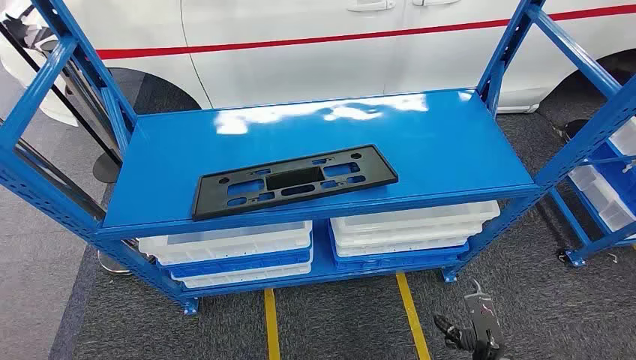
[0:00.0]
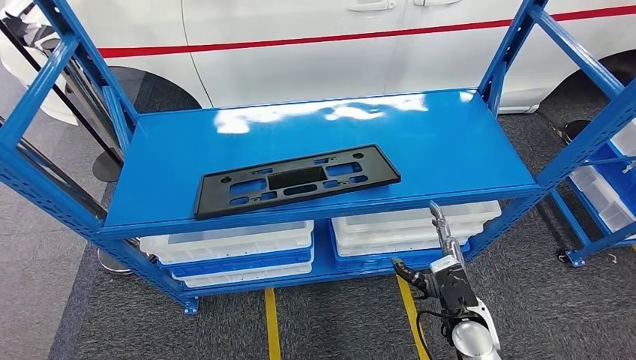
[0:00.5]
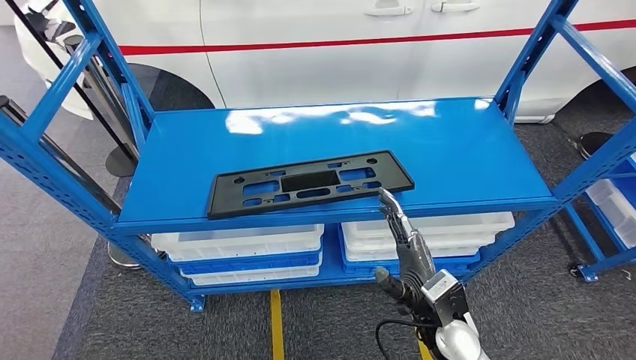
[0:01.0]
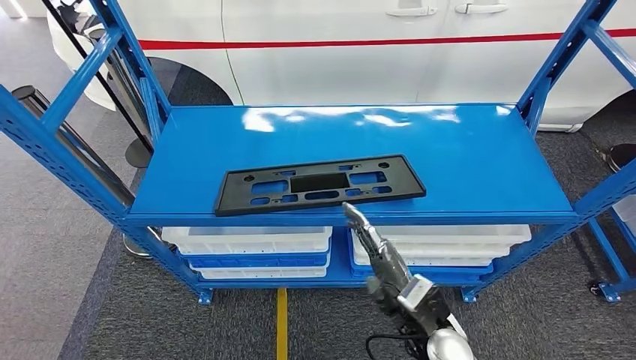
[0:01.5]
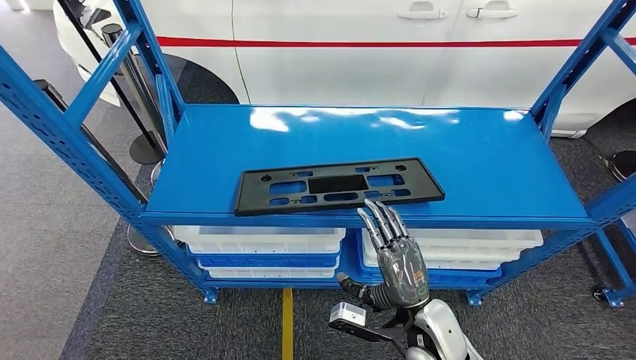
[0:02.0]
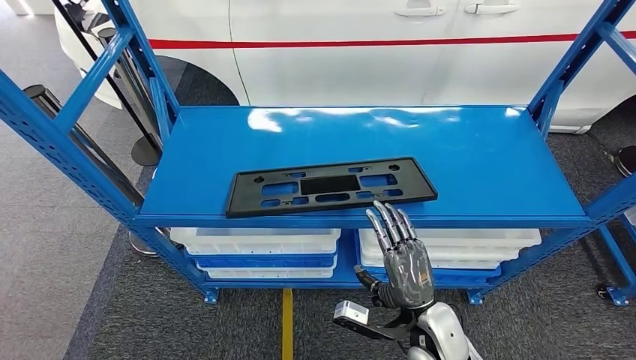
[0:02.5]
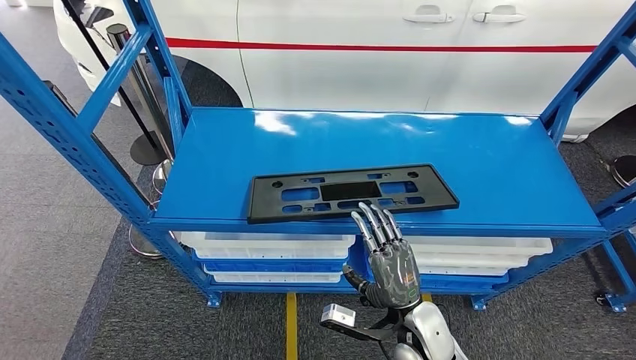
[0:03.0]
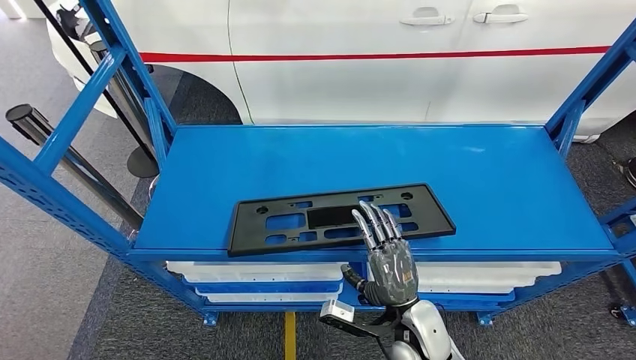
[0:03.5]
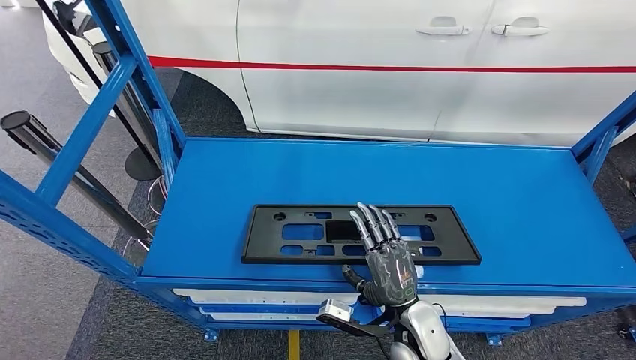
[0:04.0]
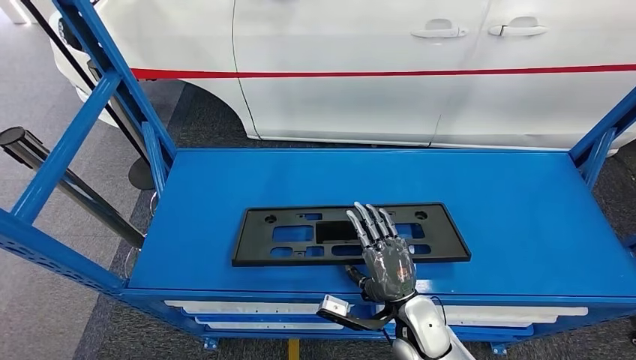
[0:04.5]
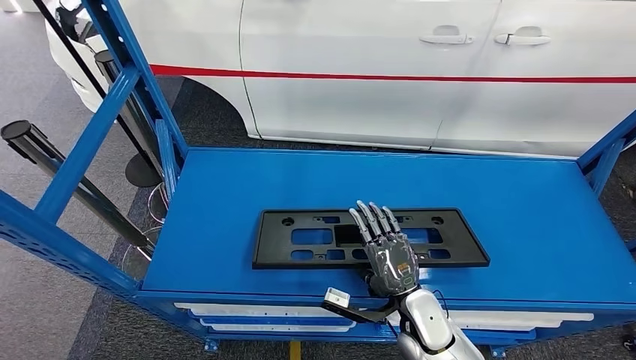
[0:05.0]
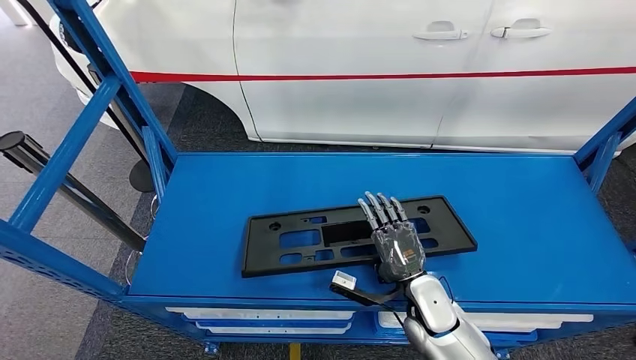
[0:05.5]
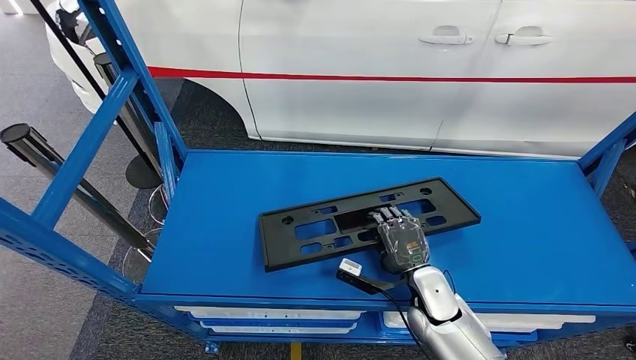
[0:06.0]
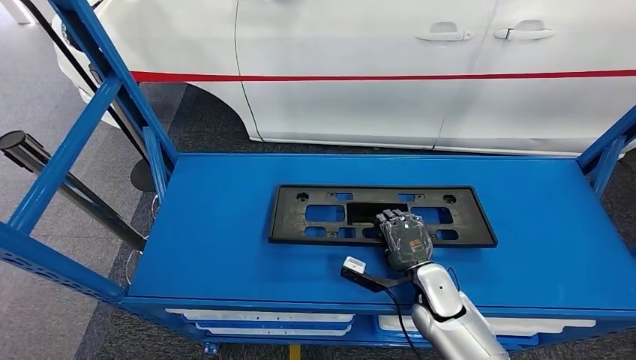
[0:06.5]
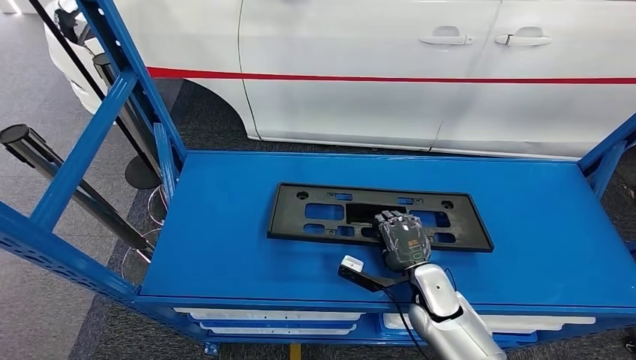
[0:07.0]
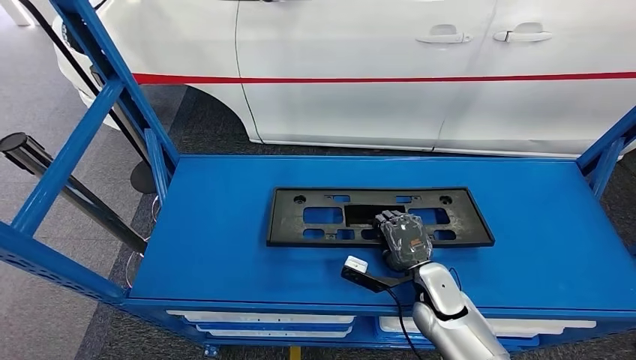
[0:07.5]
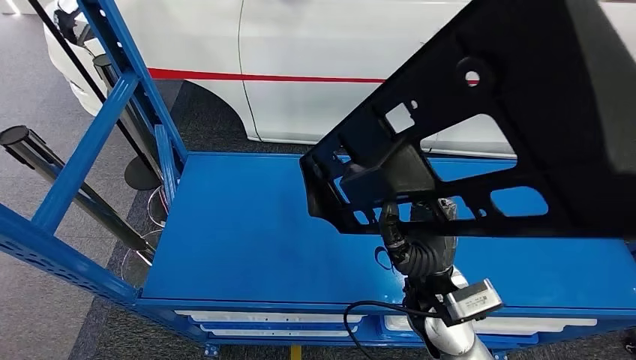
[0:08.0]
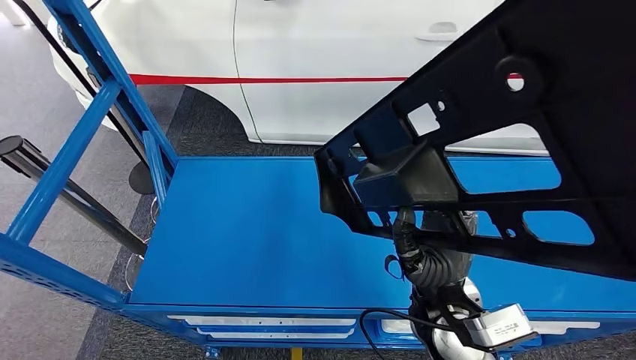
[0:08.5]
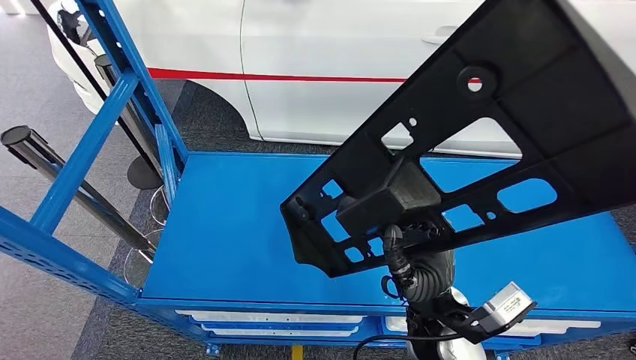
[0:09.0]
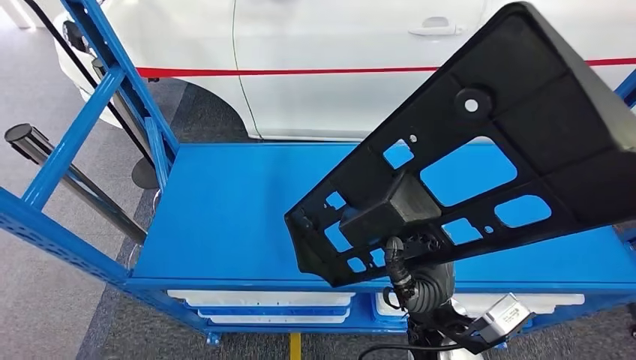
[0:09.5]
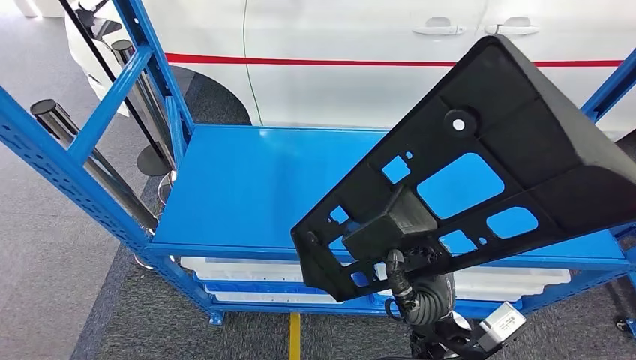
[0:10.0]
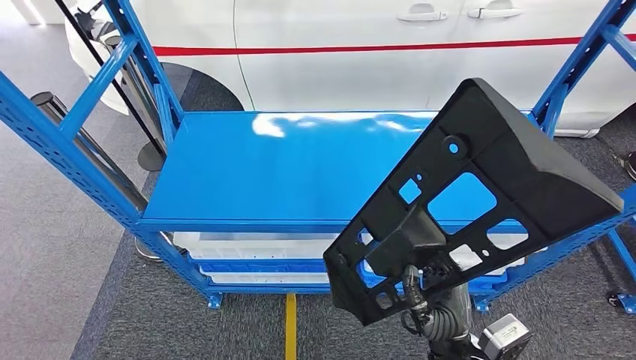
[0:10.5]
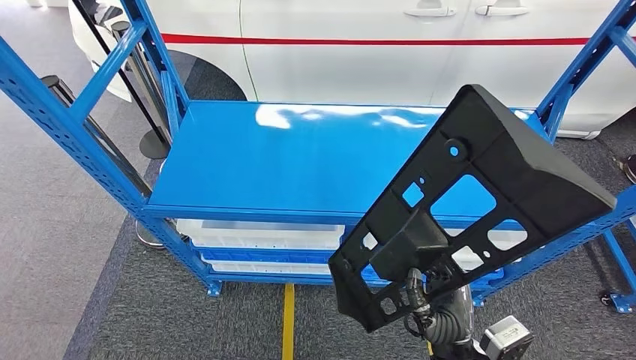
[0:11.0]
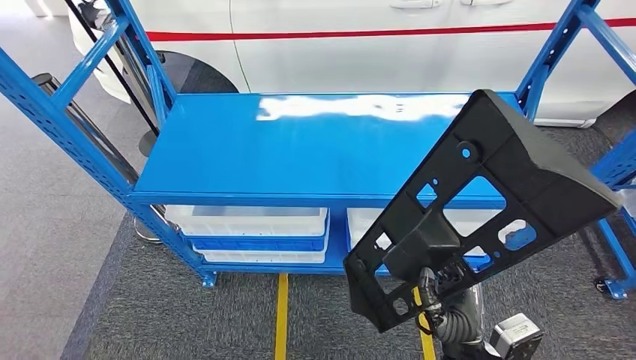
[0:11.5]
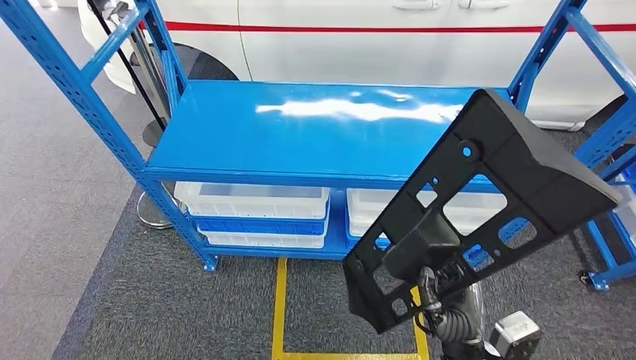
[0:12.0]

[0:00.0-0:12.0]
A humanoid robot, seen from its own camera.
Step, 0:00.0 to 0:11.0: Pick up the large material from the shelf.

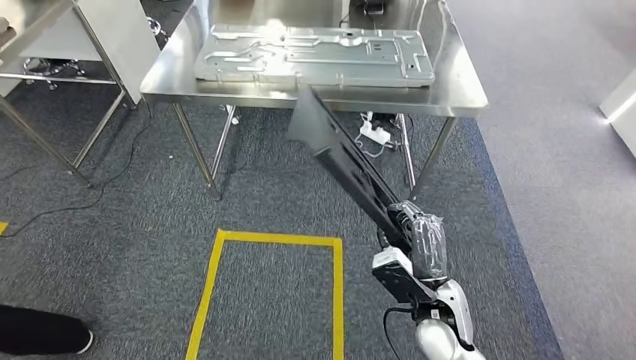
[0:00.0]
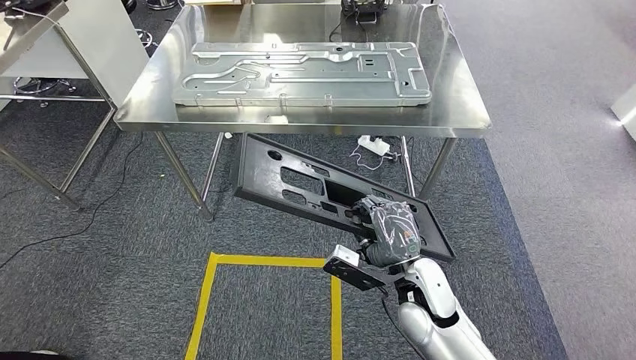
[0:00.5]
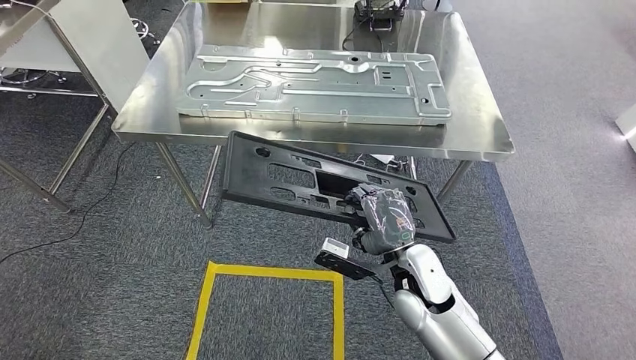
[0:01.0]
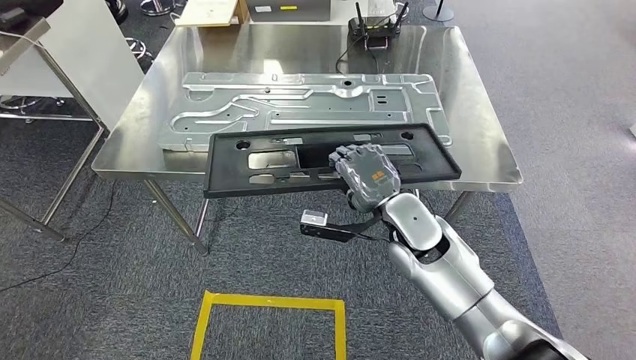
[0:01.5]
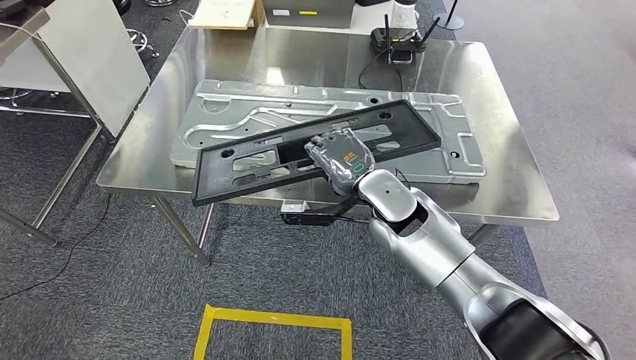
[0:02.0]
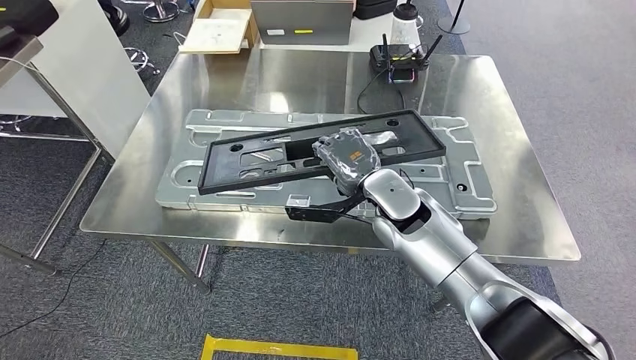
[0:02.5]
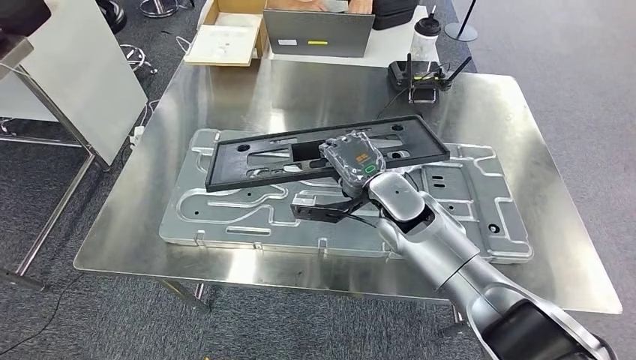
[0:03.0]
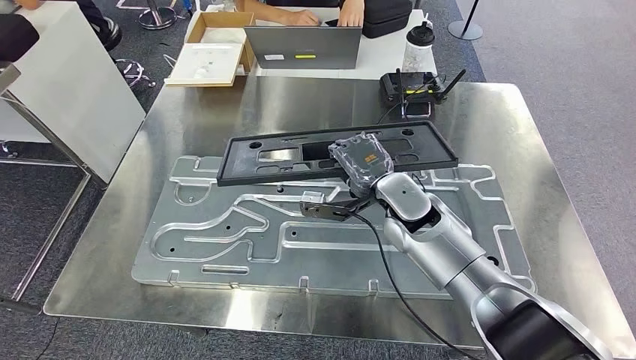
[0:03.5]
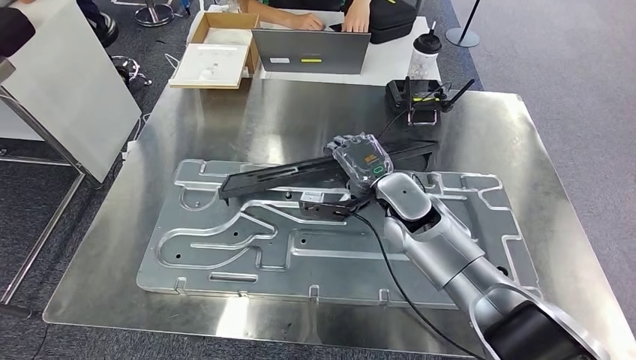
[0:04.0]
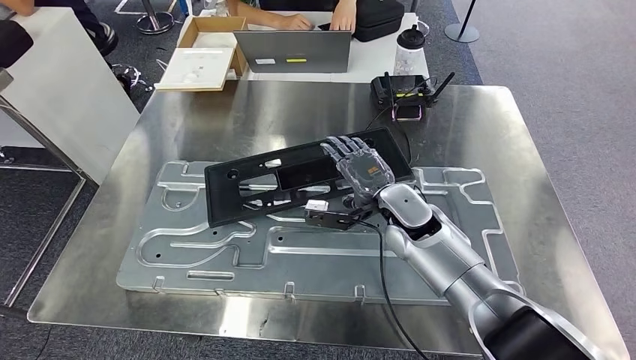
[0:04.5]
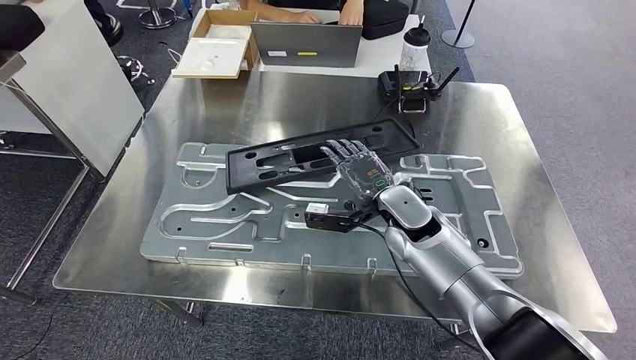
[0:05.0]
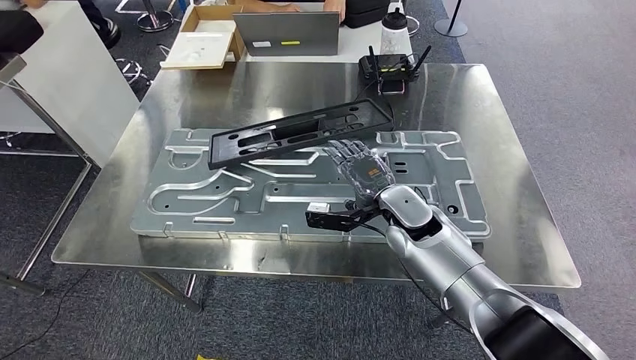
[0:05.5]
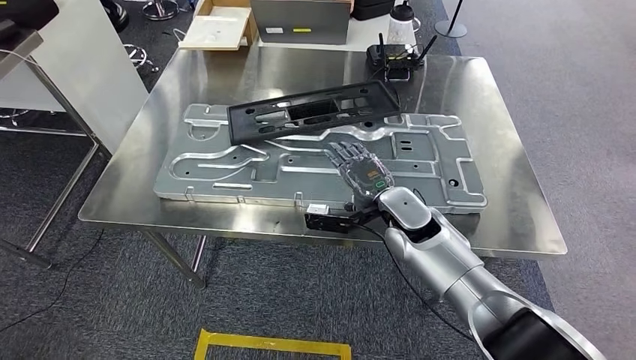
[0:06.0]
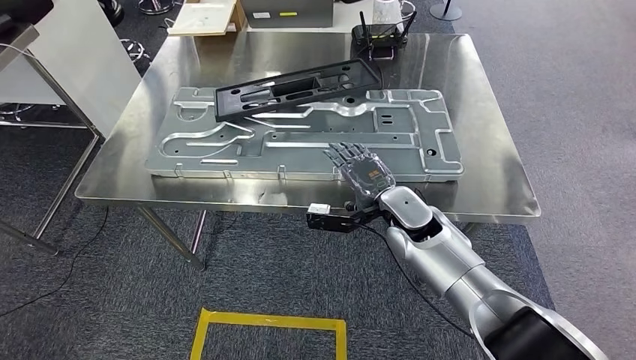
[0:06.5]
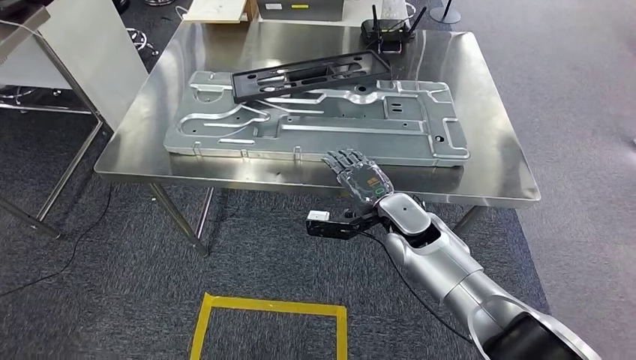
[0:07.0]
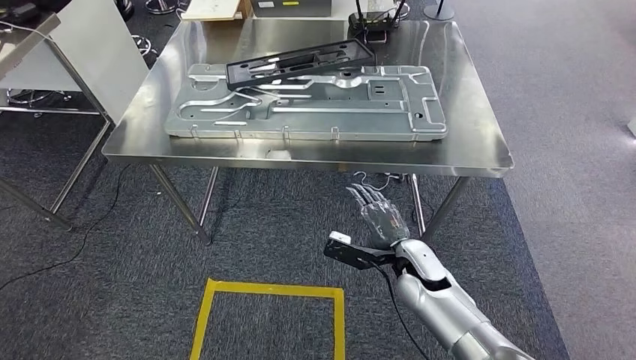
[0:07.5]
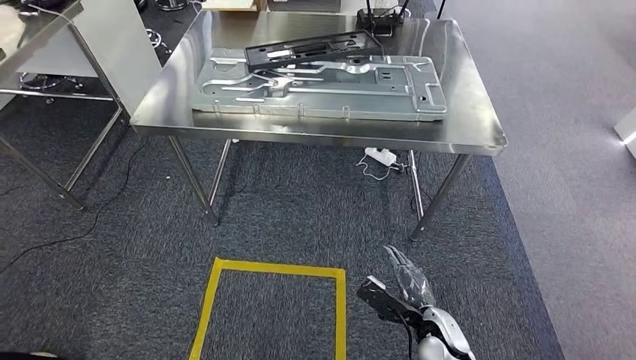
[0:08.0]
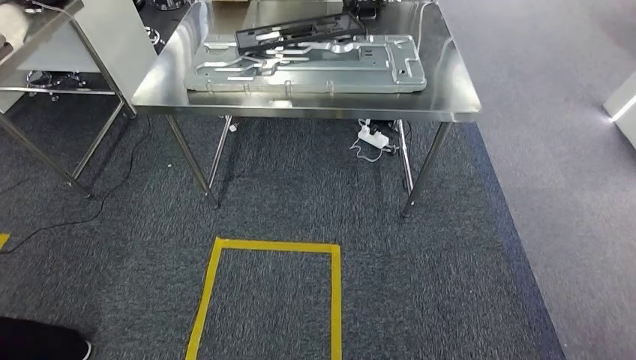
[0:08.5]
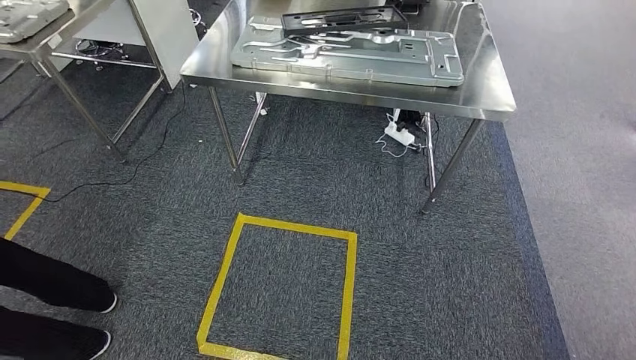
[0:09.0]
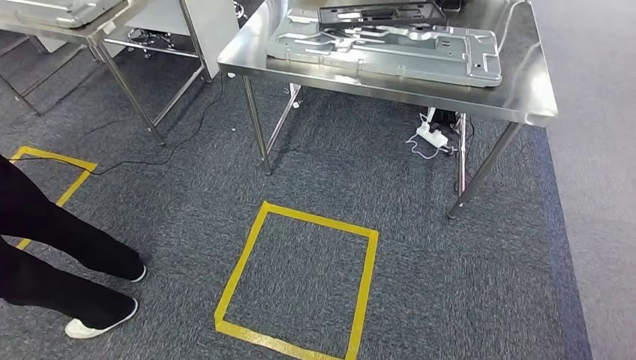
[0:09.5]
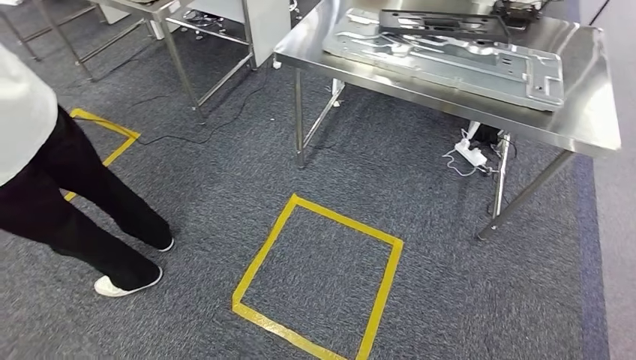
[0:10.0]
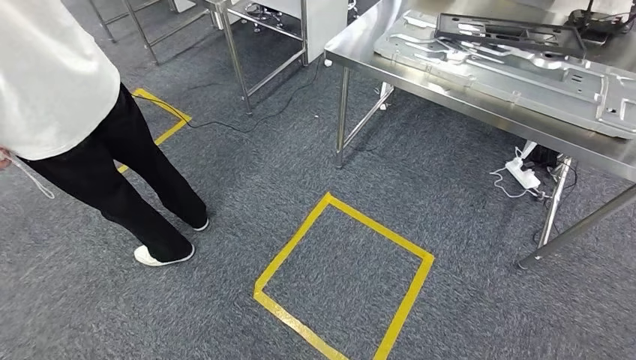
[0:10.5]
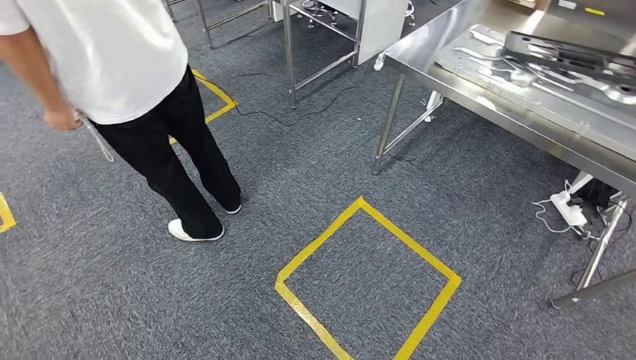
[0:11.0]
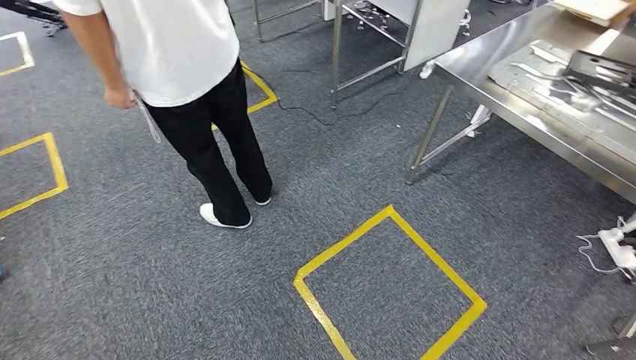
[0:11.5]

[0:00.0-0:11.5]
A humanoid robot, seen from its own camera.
Step, 0:01.5 to 0:08.5: Insert the large material into the corresponding slot on the workbench.
